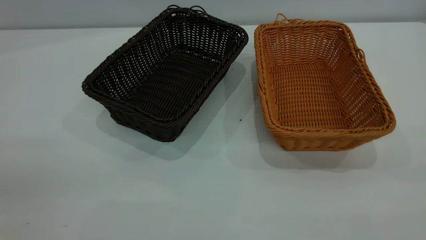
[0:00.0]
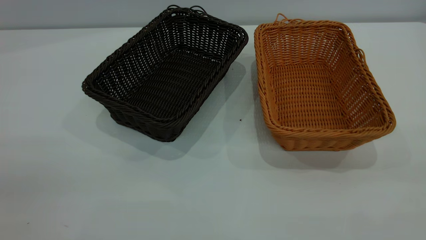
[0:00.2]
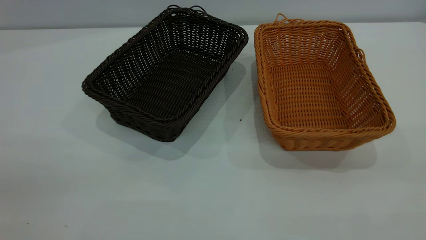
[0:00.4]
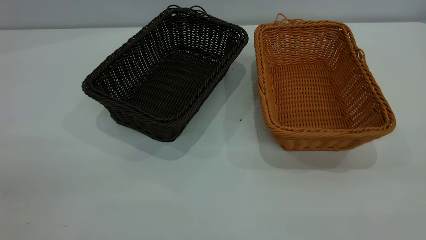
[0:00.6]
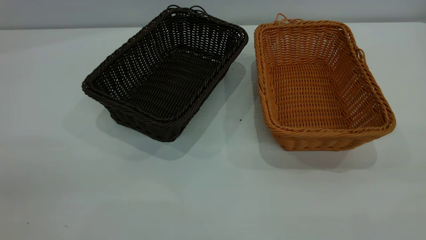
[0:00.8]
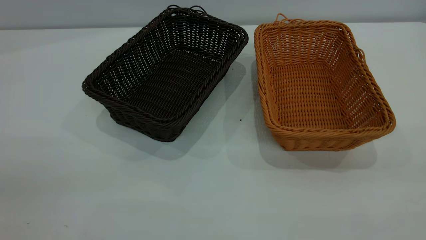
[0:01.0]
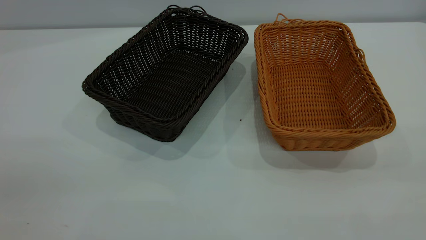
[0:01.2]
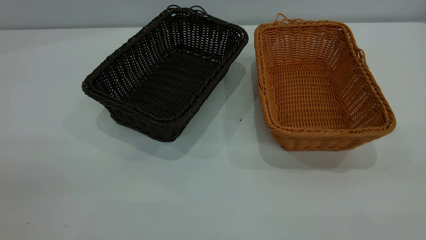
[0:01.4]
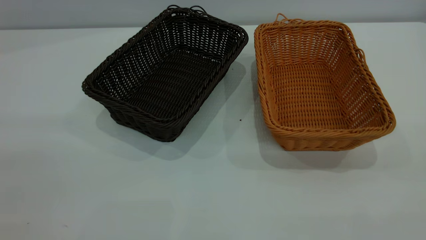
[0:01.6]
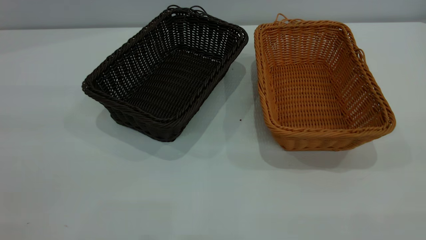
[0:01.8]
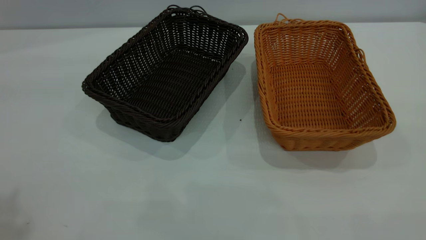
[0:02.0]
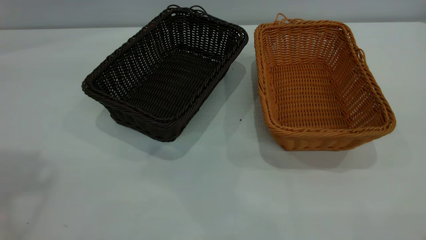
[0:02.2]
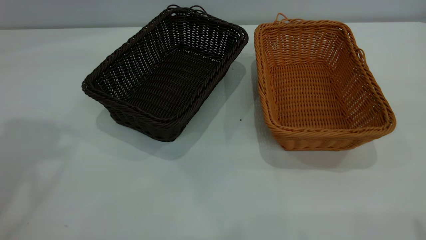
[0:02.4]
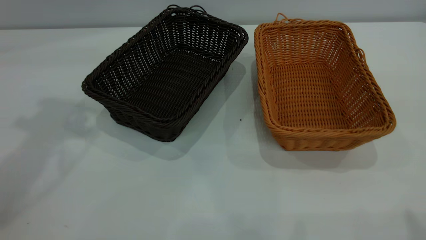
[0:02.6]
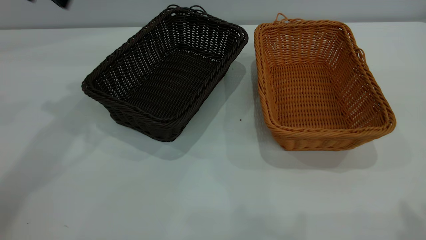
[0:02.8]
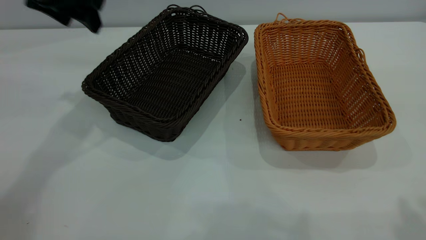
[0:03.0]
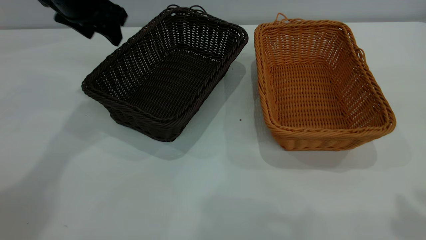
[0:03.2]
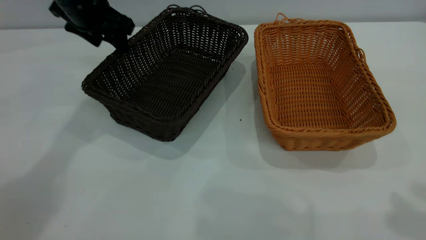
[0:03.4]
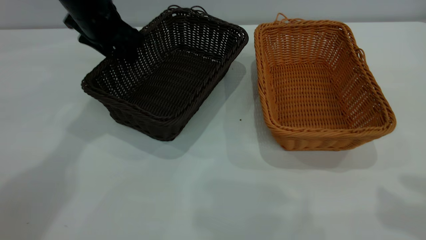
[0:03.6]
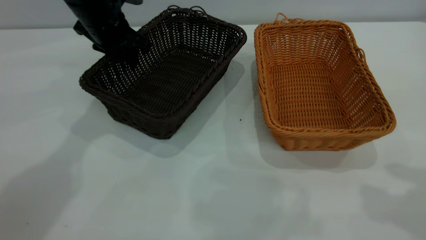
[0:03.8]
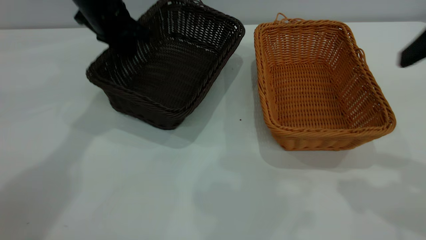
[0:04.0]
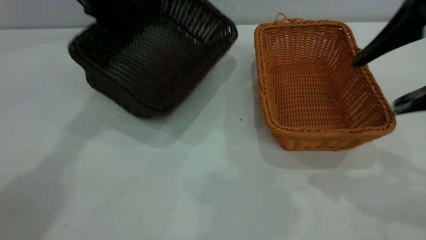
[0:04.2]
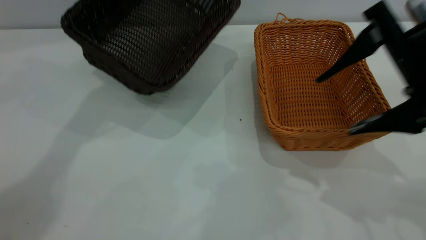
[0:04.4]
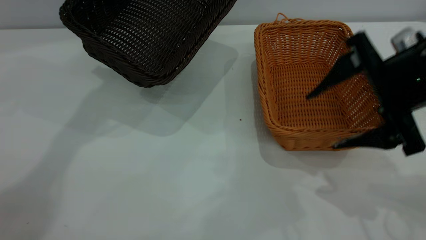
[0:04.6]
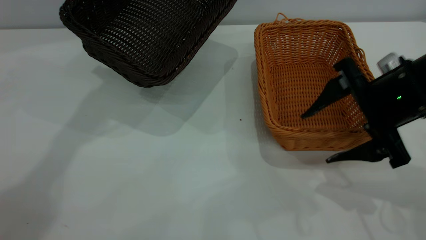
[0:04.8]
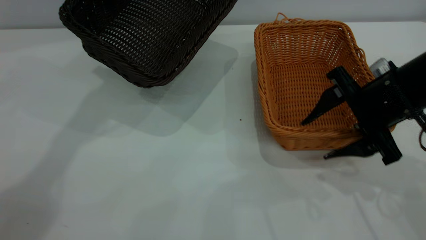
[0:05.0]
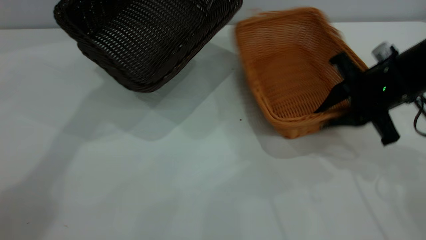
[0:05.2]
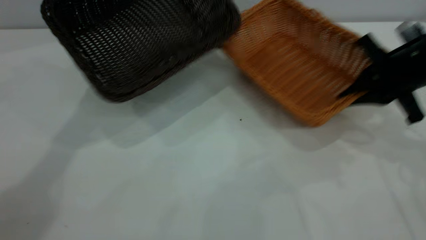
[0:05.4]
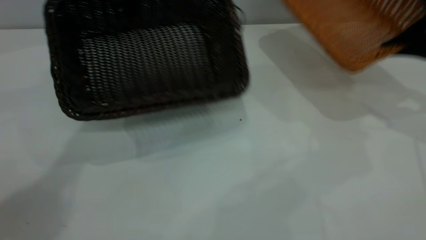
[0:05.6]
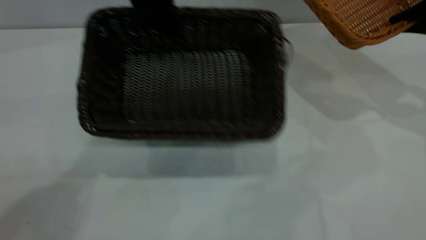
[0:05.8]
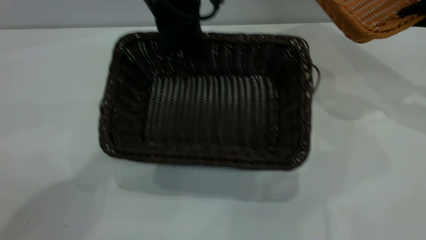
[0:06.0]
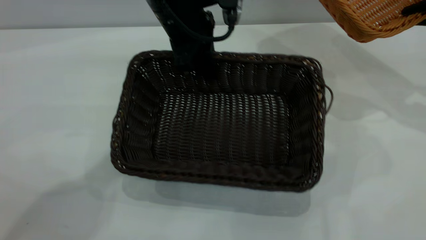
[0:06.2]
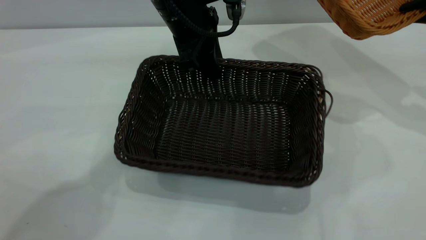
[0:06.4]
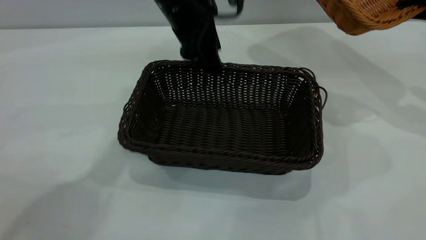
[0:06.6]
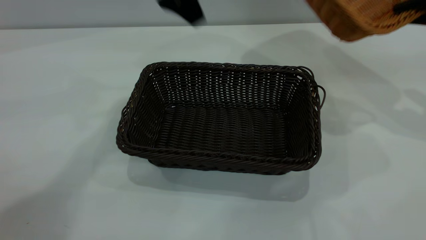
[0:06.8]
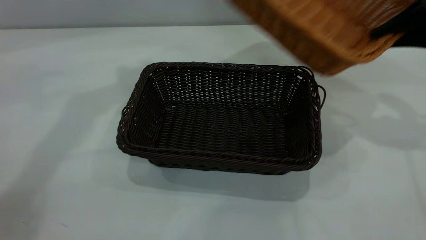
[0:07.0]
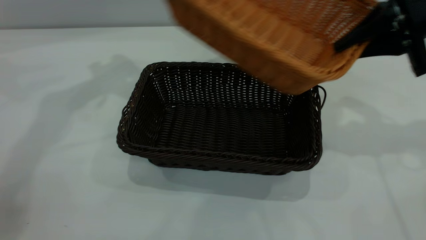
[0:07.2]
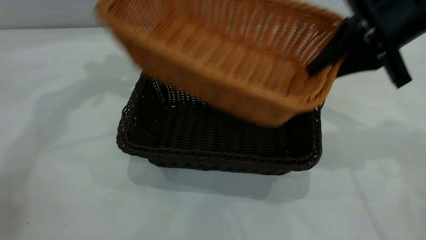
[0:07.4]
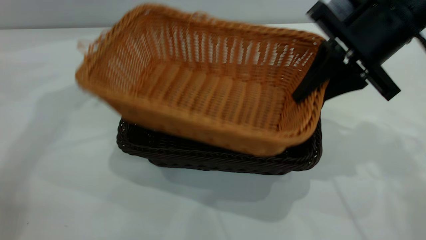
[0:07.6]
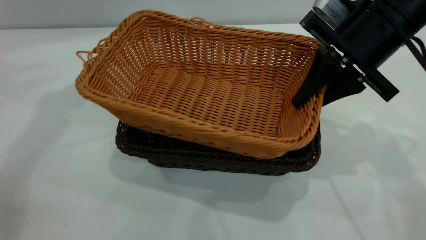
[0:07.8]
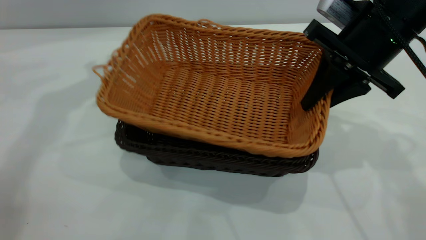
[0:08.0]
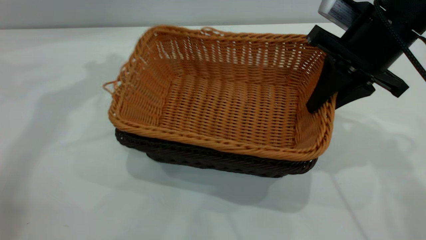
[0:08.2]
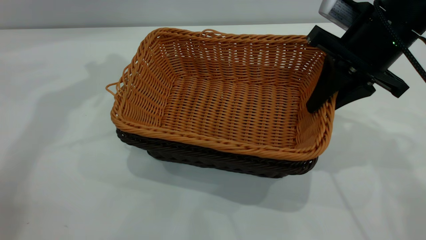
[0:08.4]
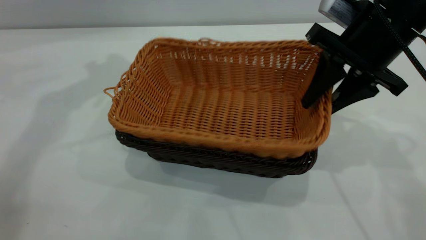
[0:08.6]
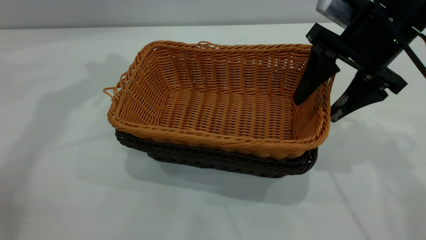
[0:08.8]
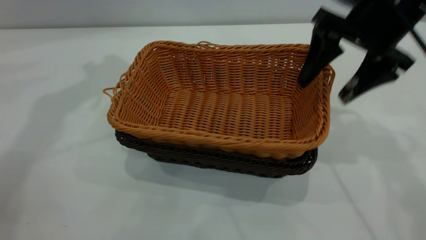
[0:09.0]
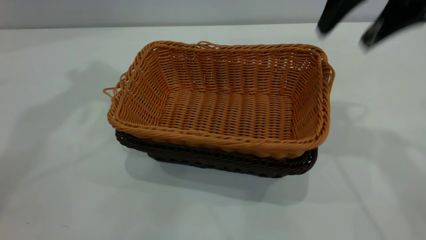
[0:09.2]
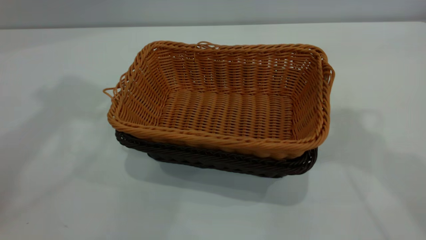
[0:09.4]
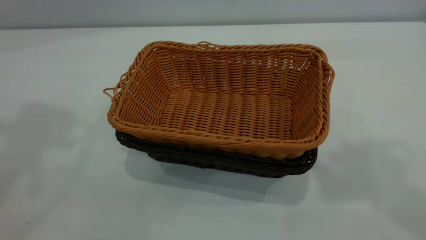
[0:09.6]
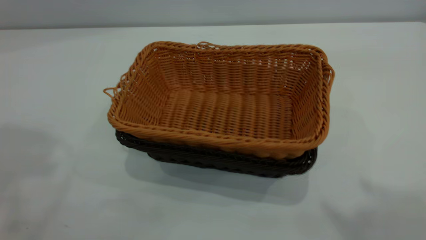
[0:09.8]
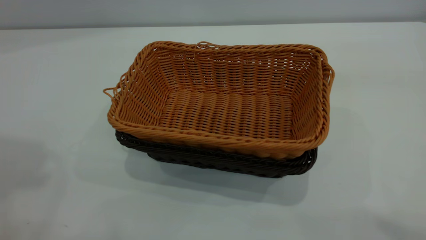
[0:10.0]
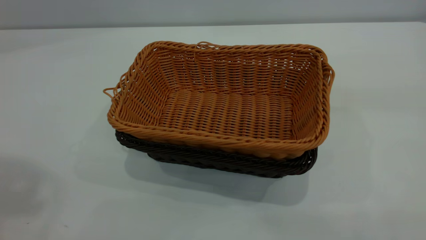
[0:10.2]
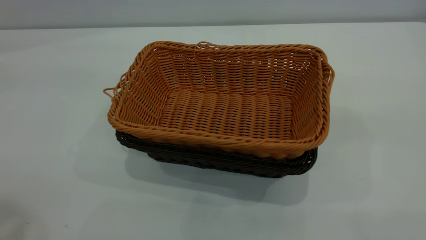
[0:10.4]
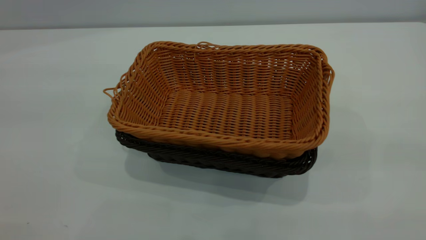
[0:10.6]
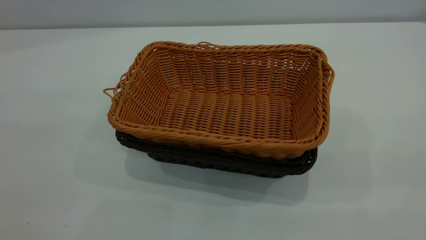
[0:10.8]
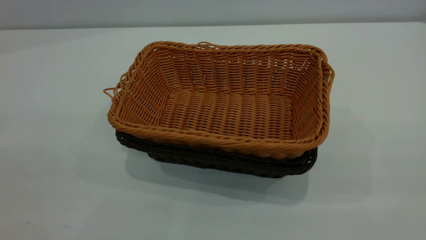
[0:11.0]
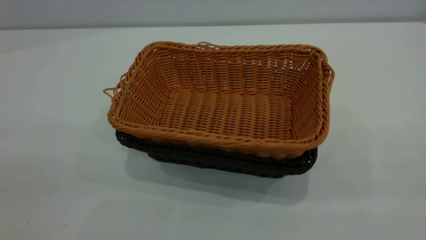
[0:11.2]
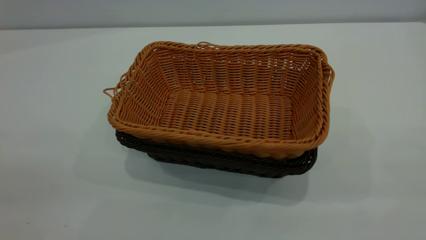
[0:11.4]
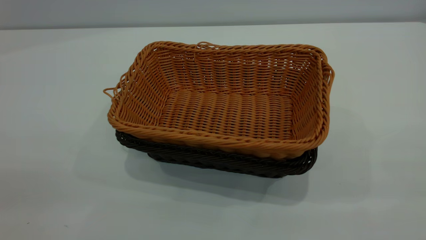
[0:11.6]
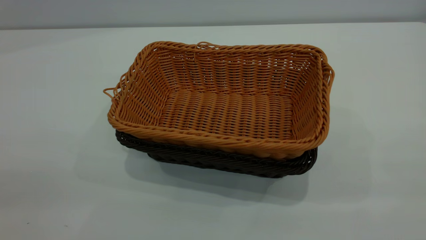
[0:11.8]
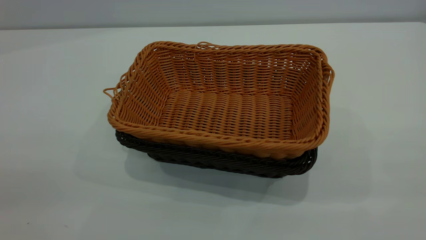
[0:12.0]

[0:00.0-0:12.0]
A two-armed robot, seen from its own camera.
Task of the whole recording: the left gripper grasp the black basket and place it in the center of the table, the right gripper grasp the brown basket and place it inside the black one.
Step, 0:00.0 to 0:05.6: Pick up the light basket with the right gripper.
Step, 0:05.8 to 0:06.6: Move the dark basket to the center of view.
Step, 0:06.8 to 0:09.0: Place the light basket on the dark basket.
0:01.6 to 0:03.0: The left gripper is displaced forward and downward by approximately 40 cm.
0:03.0 to 0:04.4: The left gripper goes downward and returns, some 10 cm each way, and closes its fingers. Meanwhile the right gripper travels downward, forward and to the left by some 20 cm.
0:04.4 to 0:06.0: The left gripper goes approximately 15 cm to the right, backward and downward, while the right gripper shifts roughly 20 cm to the right and forward, and closes.
0:06.0 to 0:07.6: The left gripper is displaced to the left and upward by roughly 20 cm, and opens up. Meanwhile the right gripper travels to the left by approximately 20 cm.
0:07.6 to 0:09.0: The right gripper opens up.
0:09.0 to 0:10.4: The left gripper heads backward, covering some 30 cm, while the right gripper travels backward and upward by roughly 40 cm.

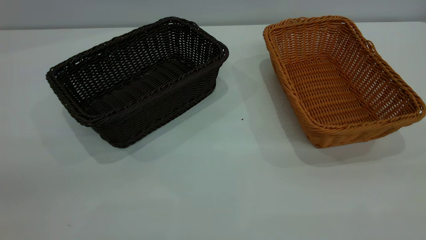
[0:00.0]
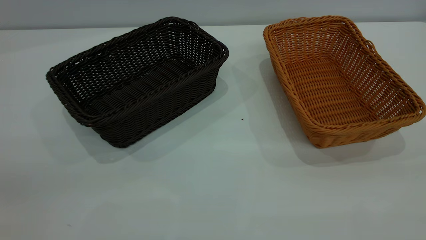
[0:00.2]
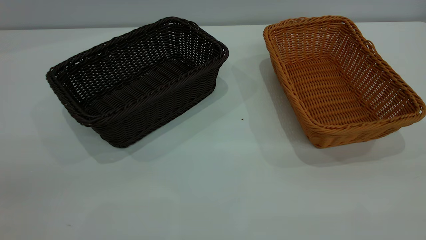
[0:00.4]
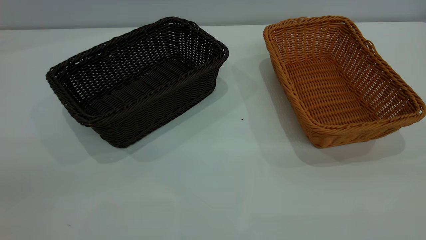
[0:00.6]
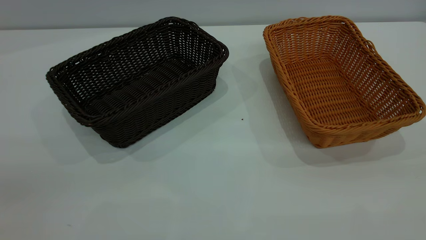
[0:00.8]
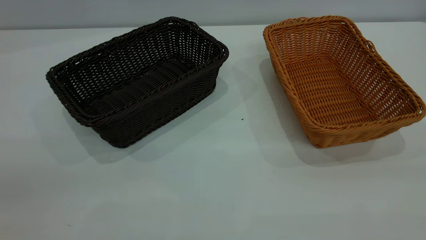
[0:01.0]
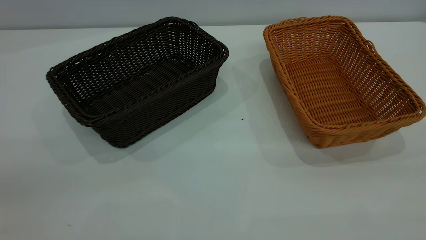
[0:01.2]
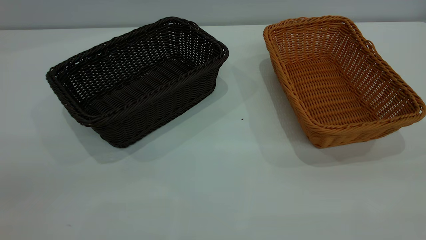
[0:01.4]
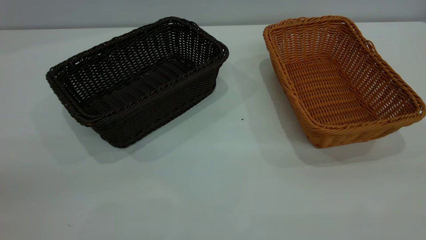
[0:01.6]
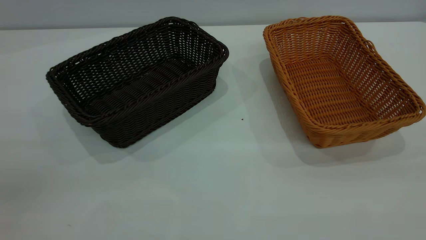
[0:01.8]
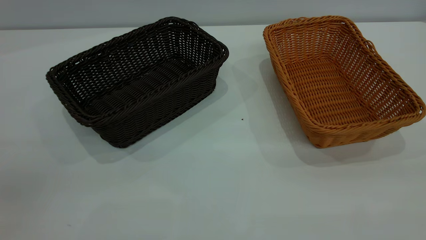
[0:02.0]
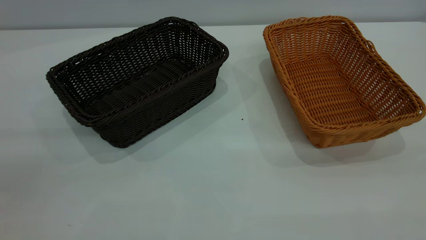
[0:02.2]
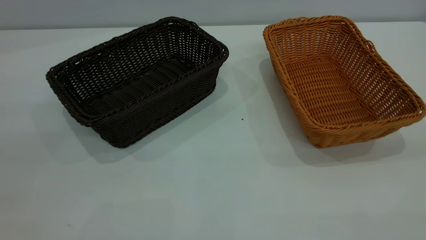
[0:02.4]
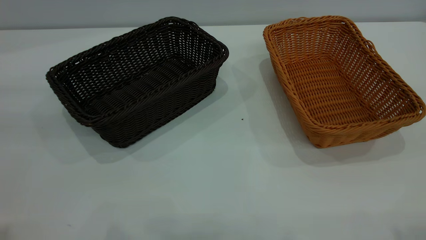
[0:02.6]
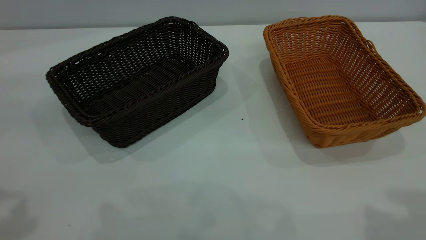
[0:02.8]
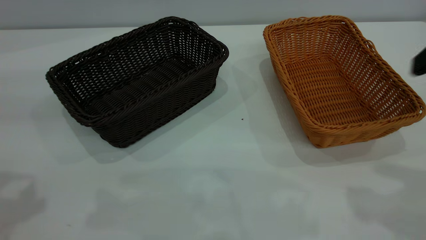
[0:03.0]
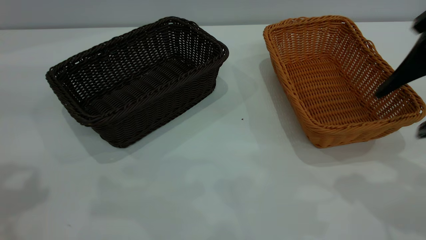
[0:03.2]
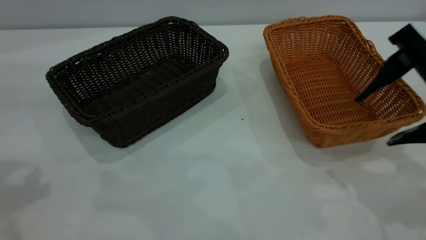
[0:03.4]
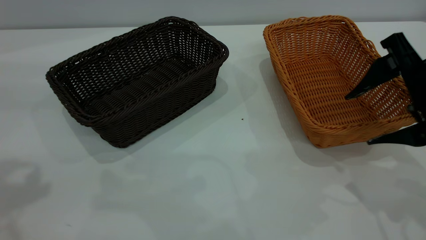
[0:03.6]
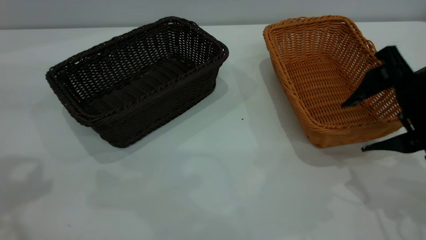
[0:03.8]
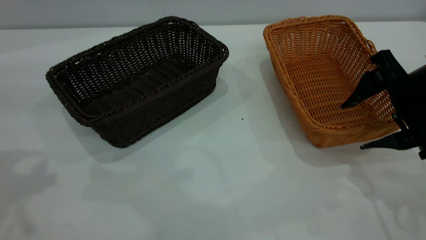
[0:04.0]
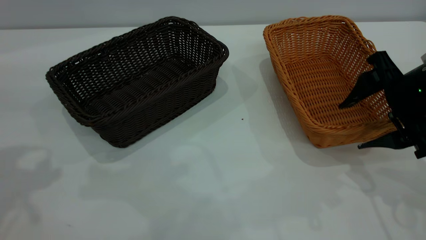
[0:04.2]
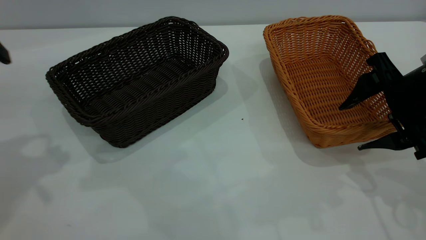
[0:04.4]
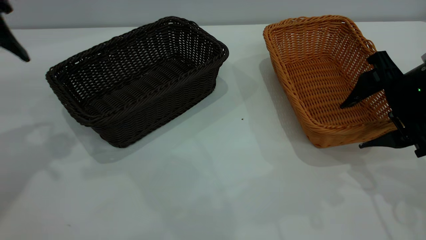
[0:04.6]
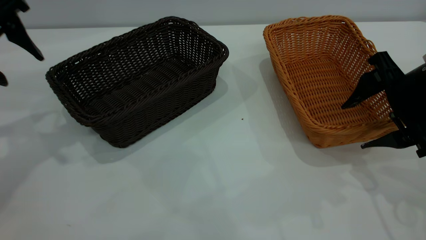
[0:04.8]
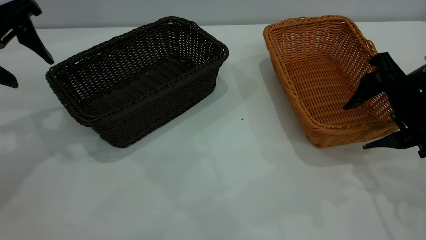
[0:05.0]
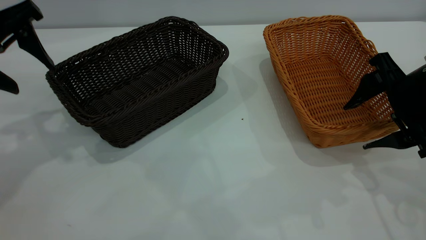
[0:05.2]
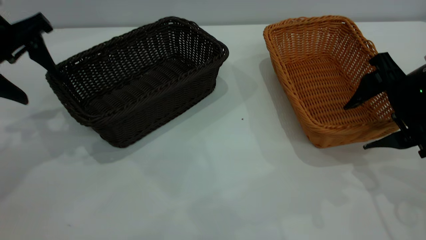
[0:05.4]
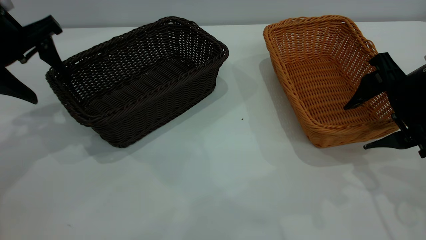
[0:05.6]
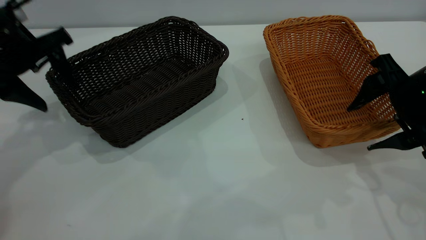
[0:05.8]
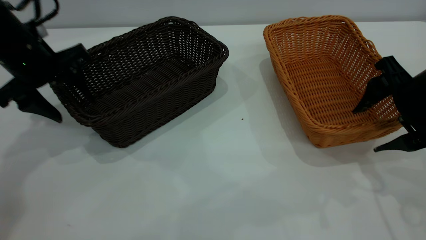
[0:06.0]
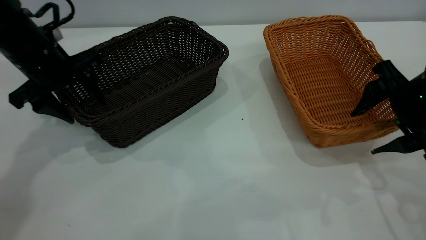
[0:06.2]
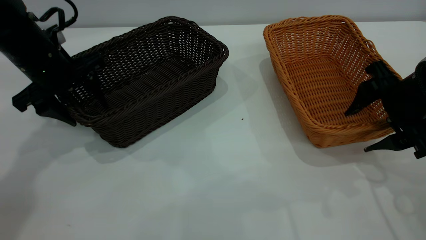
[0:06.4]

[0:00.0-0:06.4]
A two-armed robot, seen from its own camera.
Task of the whole recording: the left gripper grasp the black basket and place it in the center of the table, the right gripper grasp the brown basket and place it inside the black one.
0:00.0 to 0:01.6: Both grippers stay about where they are.
0:01.6 to 0:03.2: The right gripper travels forward and downward by approximately 25 cm, and opens.
0:03.2 to 0:04.8: The right gripper heads downward and forward, covering roughly 10 cm. Meanwhile the left gripper travels forward and downward by some 15 cm.
0:04.8 to 0:06.4: The left gripper shifts roughly 10 cm downward.
